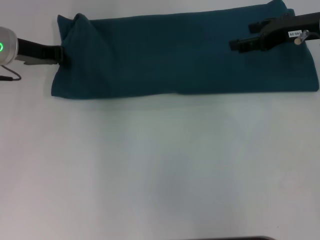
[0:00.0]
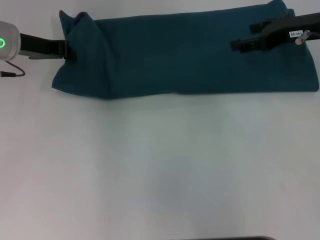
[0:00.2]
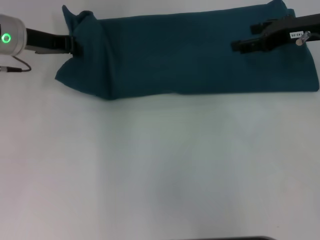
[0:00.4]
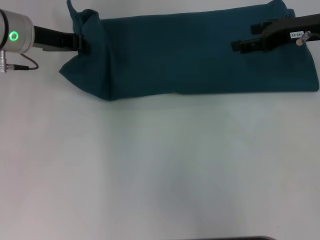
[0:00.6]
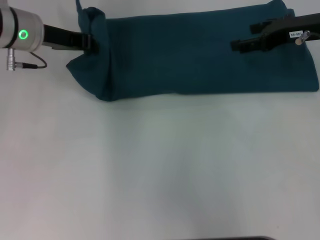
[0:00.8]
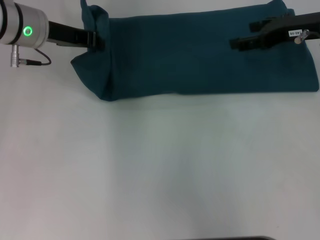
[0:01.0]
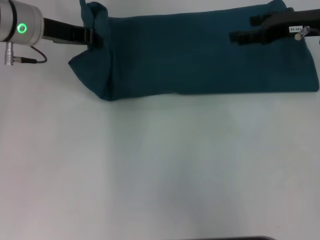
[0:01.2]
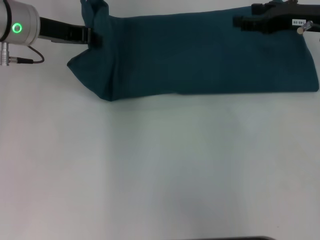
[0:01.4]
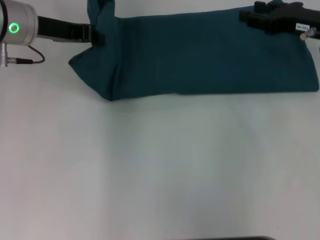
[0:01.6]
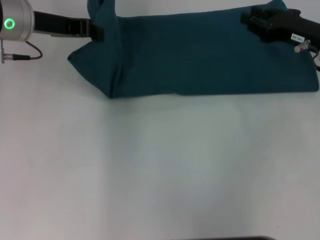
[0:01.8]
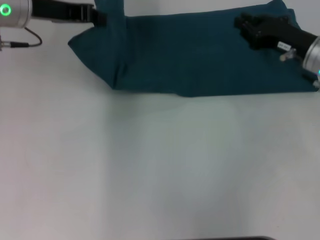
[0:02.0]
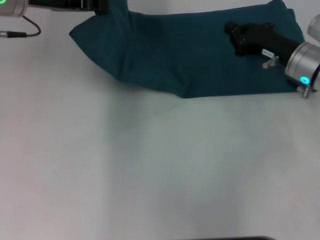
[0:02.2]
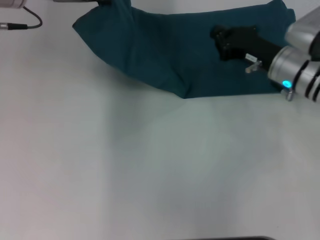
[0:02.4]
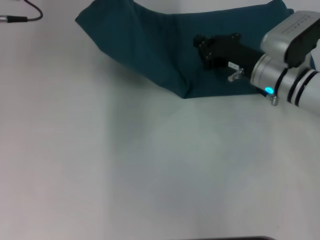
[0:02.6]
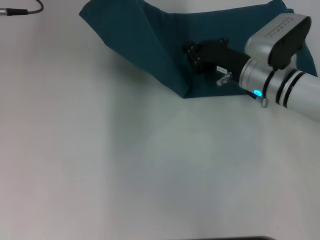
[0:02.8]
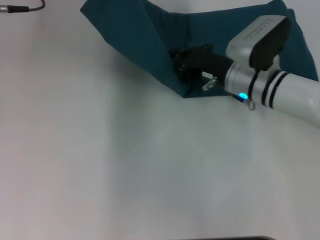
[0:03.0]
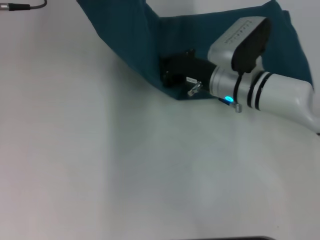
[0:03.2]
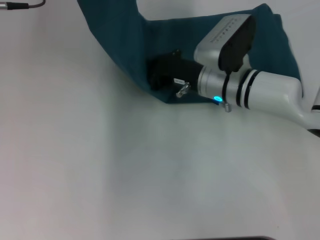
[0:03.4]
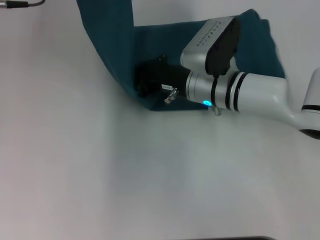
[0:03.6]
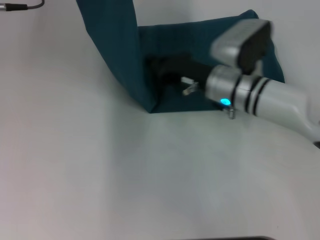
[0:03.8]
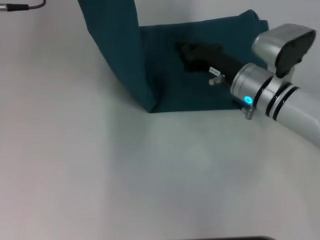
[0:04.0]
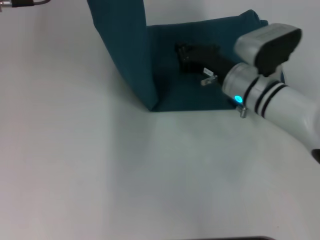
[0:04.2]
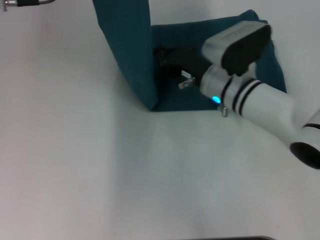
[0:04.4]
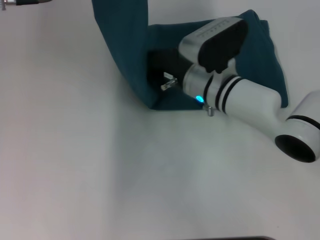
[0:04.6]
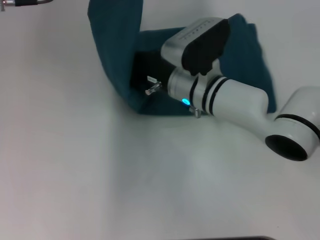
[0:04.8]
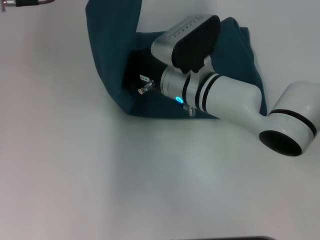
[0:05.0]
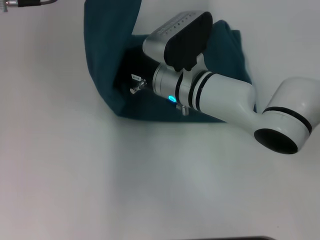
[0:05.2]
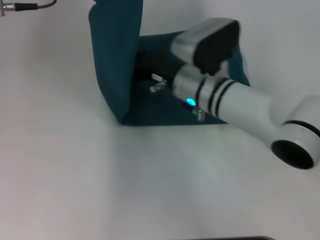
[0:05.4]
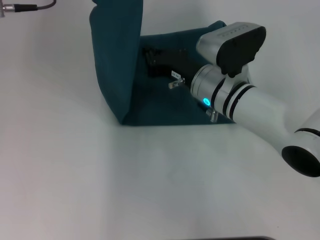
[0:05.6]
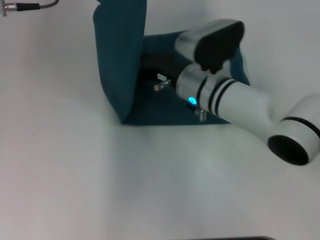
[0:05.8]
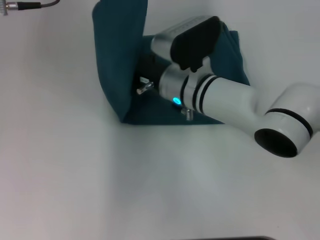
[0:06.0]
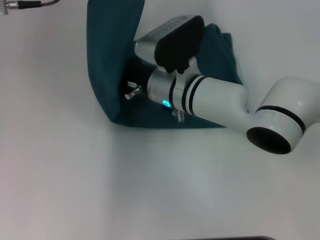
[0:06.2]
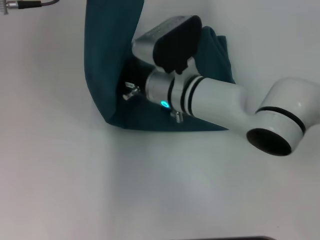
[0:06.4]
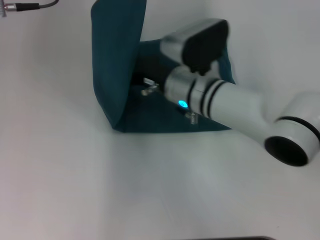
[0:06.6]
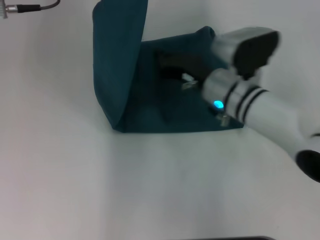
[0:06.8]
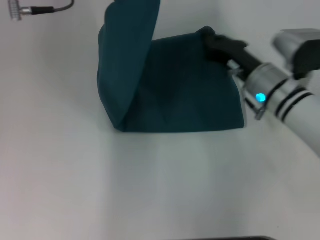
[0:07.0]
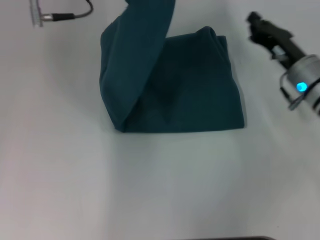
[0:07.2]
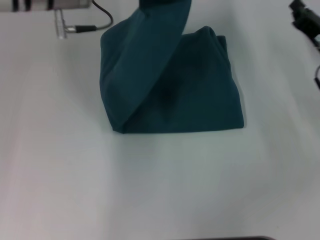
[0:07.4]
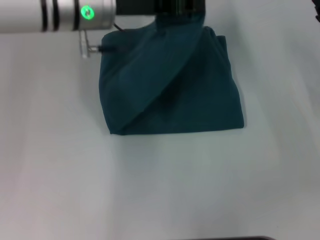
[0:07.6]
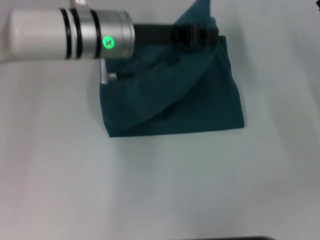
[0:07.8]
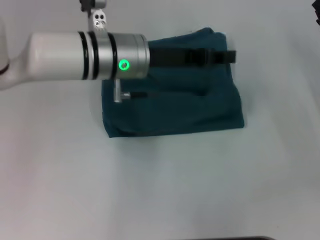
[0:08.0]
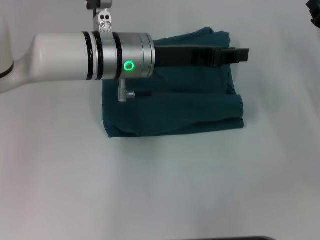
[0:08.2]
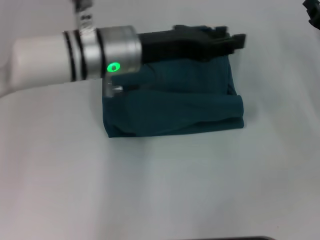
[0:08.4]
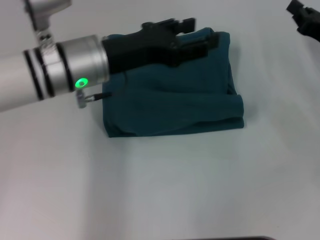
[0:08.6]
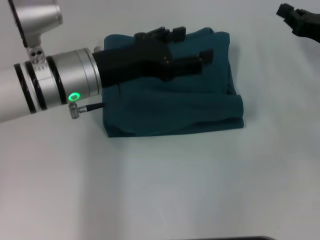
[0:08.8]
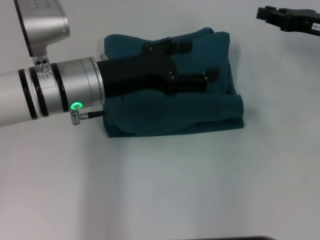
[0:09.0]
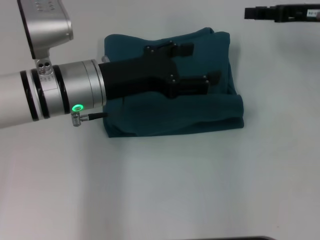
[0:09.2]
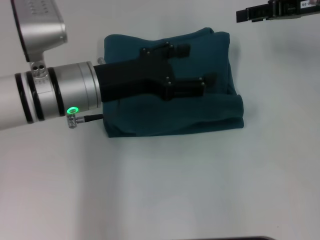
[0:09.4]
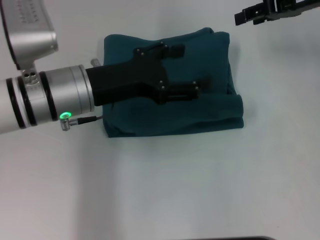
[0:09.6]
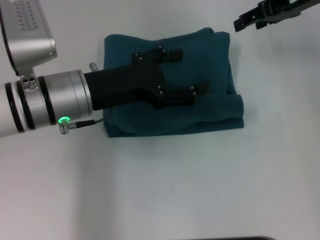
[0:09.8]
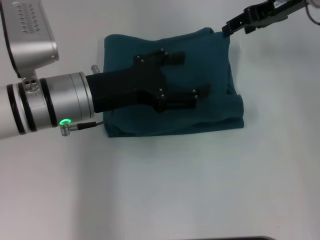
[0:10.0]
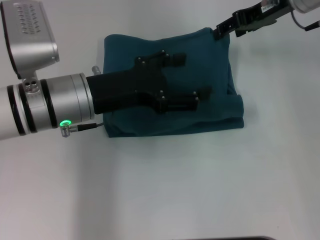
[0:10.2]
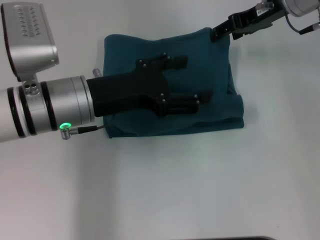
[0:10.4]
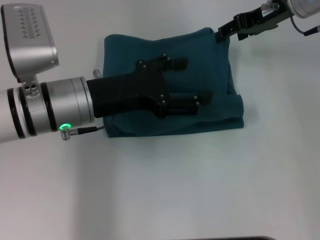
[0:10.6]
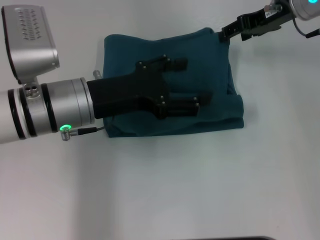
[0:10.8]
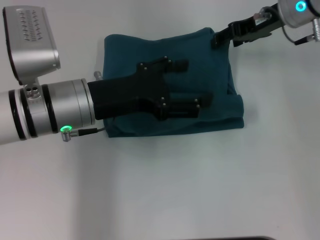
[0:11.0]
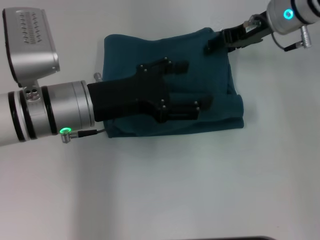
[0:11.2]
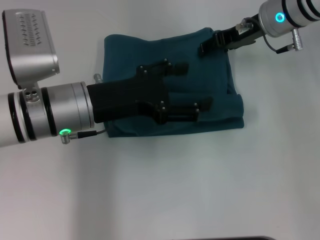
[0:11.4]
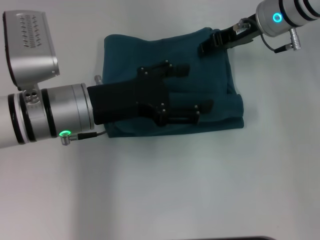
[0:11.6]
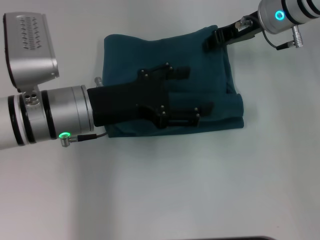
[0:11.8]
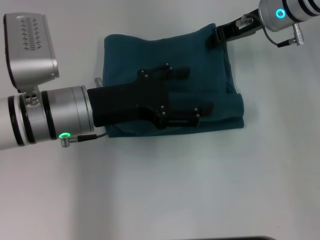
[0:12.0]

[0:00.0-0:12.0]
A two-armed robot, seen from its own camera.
Step, 0:00.0 to 0:04.8: Press the middle of the clothes with your right hand.
Step, 0:05.0 to 0:08.2: Fold the clothes to the left.
0:00.0 to 0:01.6: The left gripper ends up approximately 5 cm from where it was.
0:01.6 to 0:03.0: The left gripper travels upward by some 10 cm. Meanwhile the right gripper goes roughly 15 cm to the left and downward, and closes up.
0:03.0 to 0:04.4: The right gripper swings left and right, roughly 5 cm each way, with 2 reversals.
0:04.4 to 0:06.0: The right gripper swings left and right, roughly 5 cm each way, with 2 reversals.
0:06.0 to 0:07.6: The left gripper moves to the right and downward, some 10 cm, while the right gripper travels to the right by about 25 cm.
0:07.6 to 0:09.0: The left gripper goes about 10 cm backward and downward, and opens. The right gripper travels upward by roughly 5 cm.
0:09.0 to 0:10.4: The right gripper is displaced to the left, upward and forward by approximately 15 cm, and opens up.
0:10.4 to 0:12.0: The right gripper closes up.

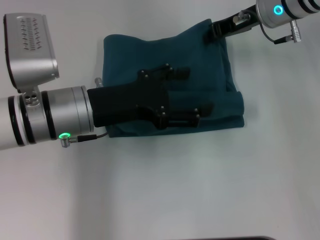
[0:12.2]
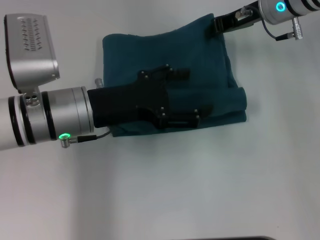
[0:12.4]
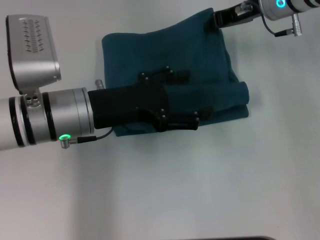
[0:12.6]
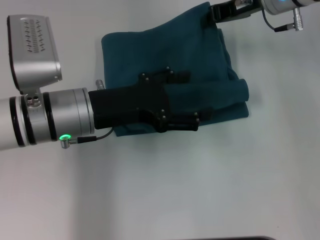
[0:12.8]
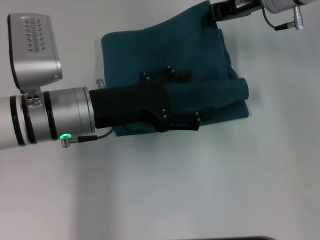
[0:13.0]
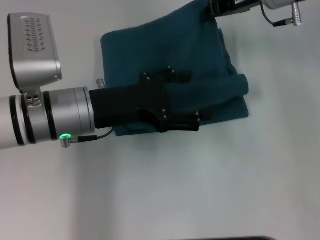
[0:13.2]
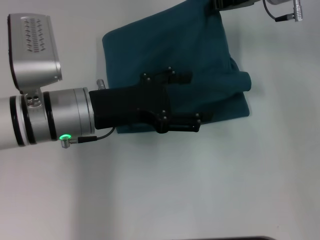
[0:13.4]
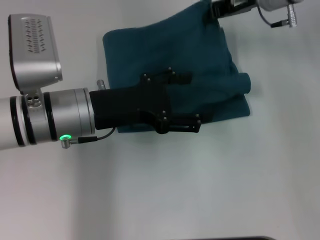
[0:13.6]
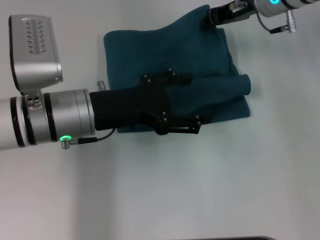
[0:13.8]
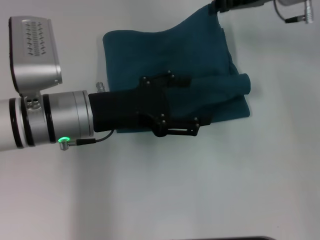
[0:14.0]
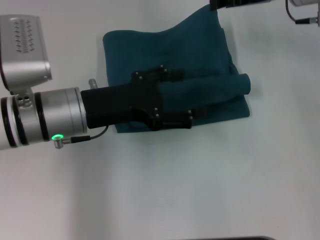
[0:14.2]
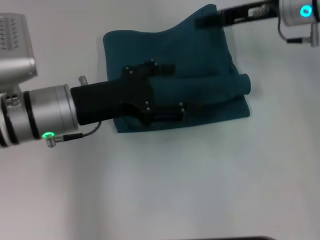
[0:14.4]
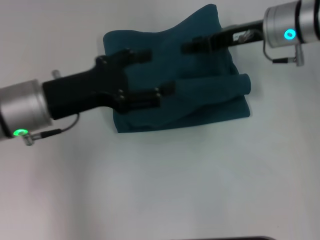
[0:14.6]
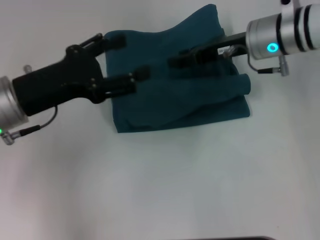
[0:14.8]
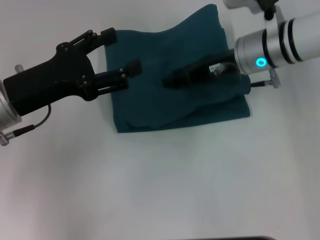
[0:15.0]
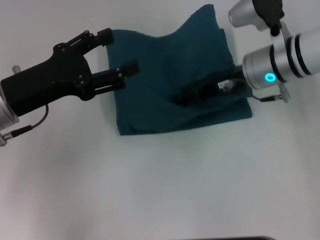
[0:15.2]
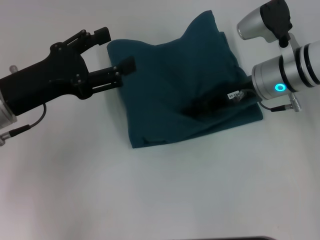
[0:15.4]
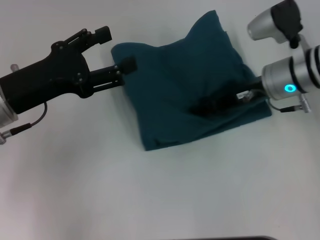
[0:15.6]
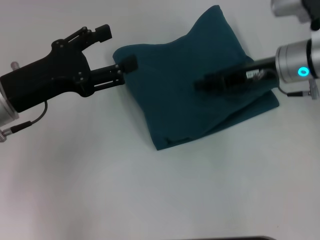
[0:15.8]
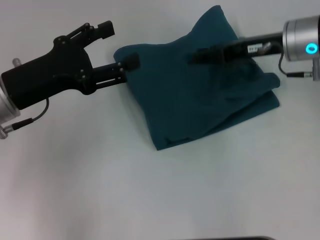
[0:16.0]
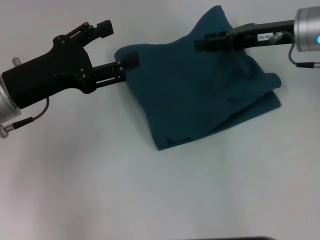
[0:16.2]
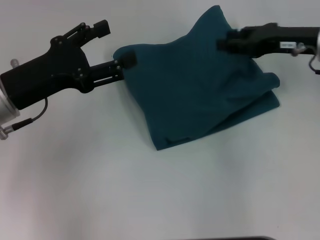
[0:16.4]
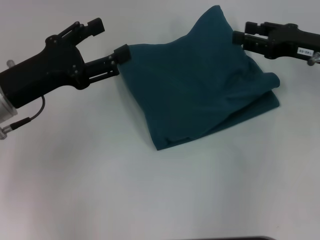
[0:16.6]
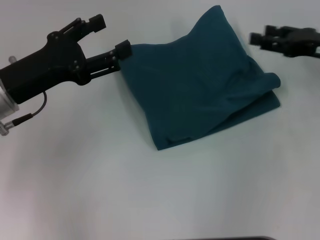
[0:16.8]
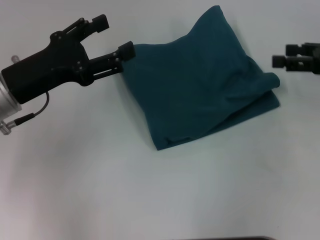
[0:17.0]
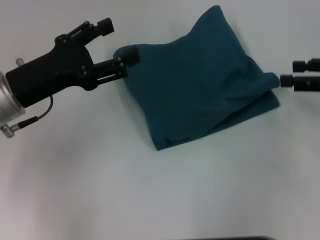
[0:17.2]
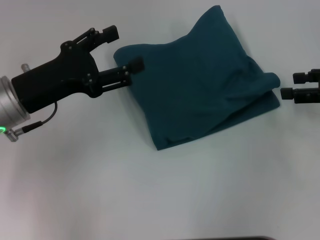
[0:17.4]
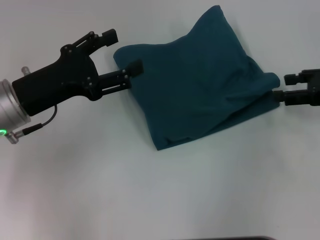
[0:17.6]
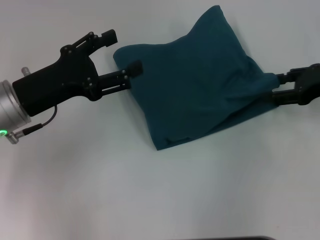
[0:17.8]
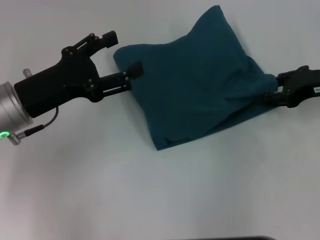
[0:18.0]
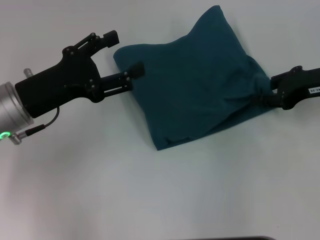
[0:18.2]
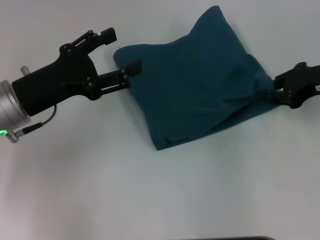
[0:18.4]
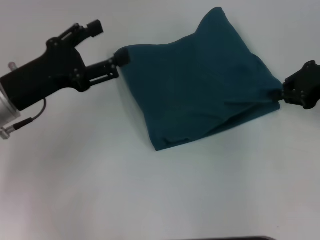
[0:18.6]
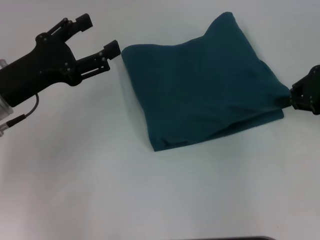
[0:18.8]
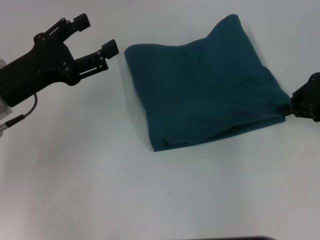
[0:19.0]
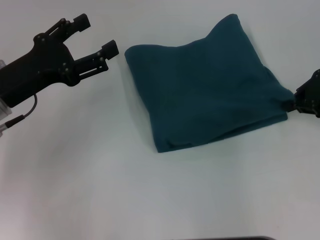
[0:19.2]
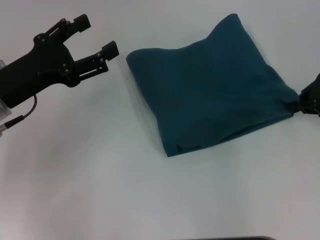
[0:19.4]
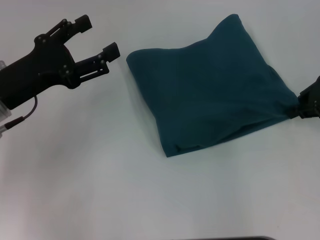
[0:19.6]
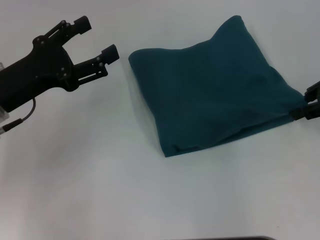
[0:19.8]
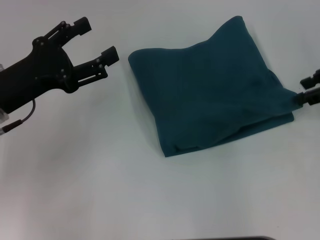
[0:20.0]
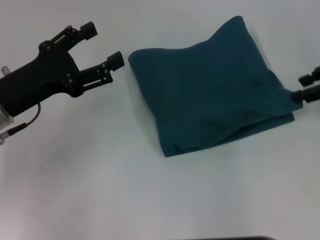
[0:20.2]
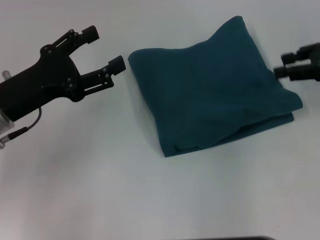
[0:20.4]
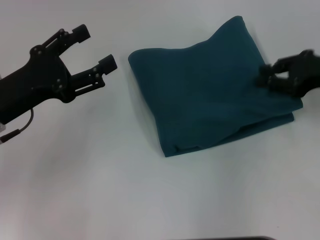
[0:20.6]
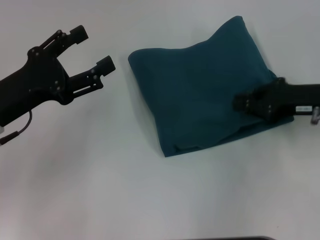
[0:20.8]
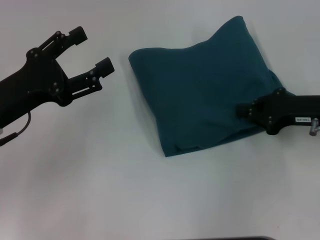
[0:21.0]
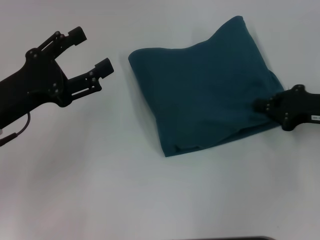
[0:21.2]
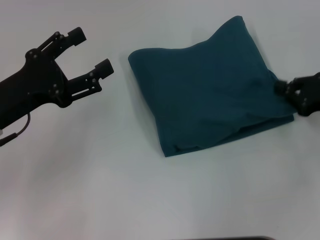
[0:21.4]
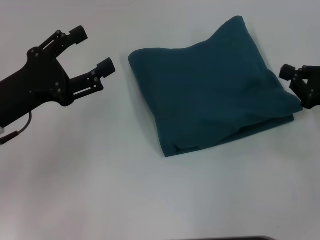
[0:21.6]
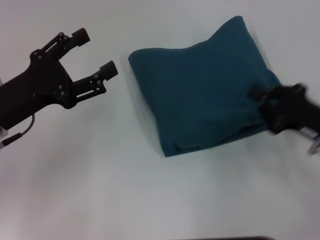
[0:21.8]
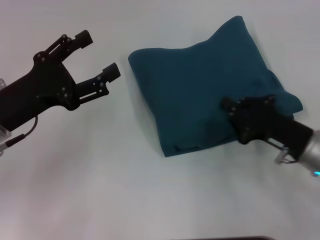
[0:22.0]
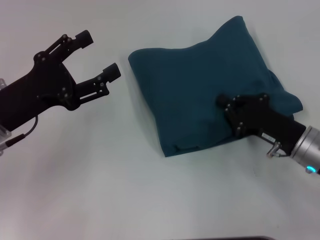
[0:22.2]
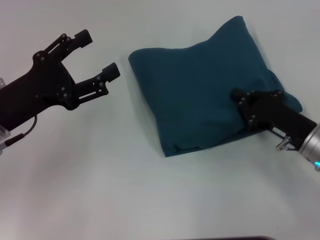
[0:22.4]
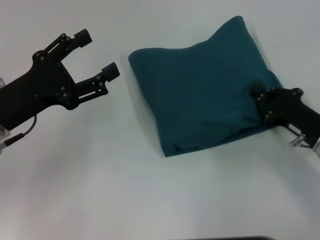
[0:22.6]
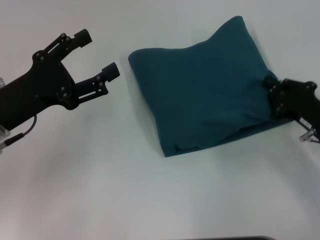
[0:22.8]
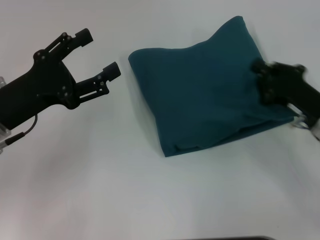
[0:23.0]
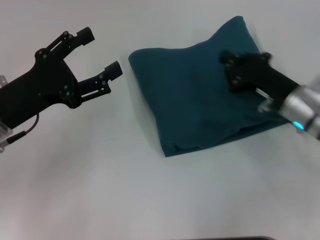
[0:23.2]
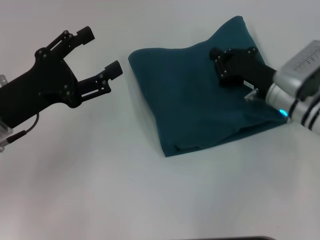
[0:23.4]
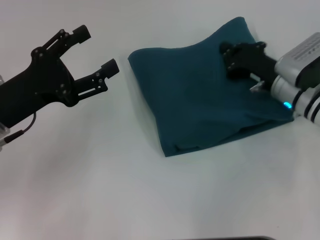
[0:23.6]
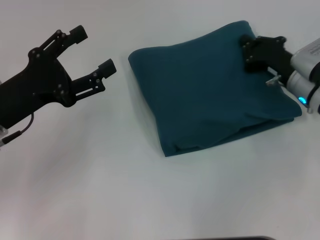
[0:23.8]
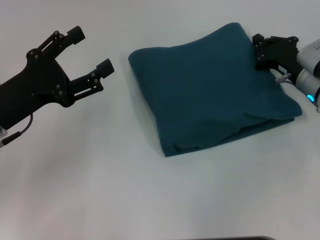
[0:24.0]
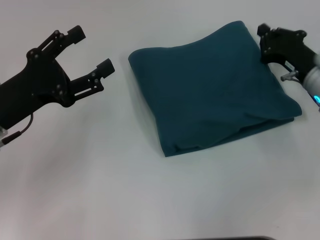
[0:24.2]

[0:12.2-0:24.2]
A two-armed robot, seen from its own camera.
0:12.2 to 0:13.8: The grippers make only small movements.
0:13.8 to 0:15.2: The right gripper goes some 10 cm backward and downward, and opens. The left gripper travels to the left by approximately 10 cm.
0:15.2 to 0:16.6: The right gripper shifts roughly 10 cm to the right.
0:18.2 to 0:19.8: The right gripper ends up some 5 cm from where it was, and closes up.
0:19.8 to 0:21.2: The right gripper moves downward and backward, roughly 10 cm, and opens, then closes again.
0:21.2 to 0:22.6: The right gripper shifts approximately 5 cm downward.
0:22.6 to 0:24.2: The right gripper moves forward, approximately 10 cm.
